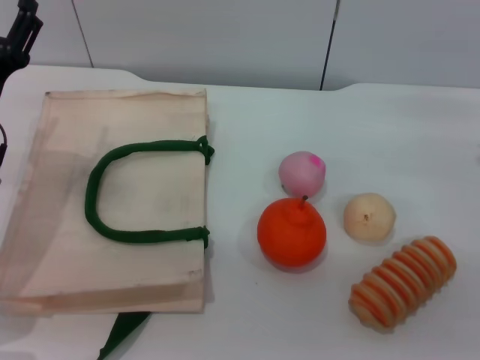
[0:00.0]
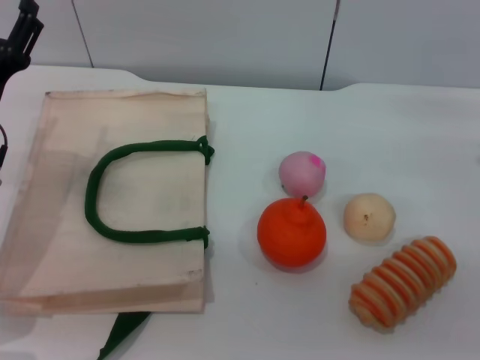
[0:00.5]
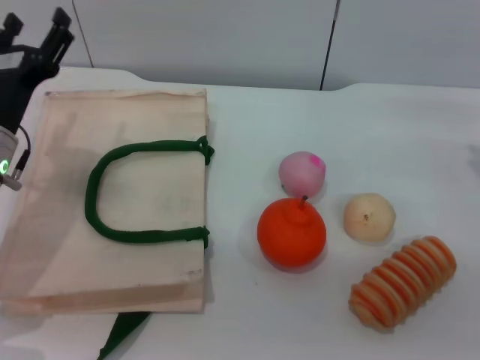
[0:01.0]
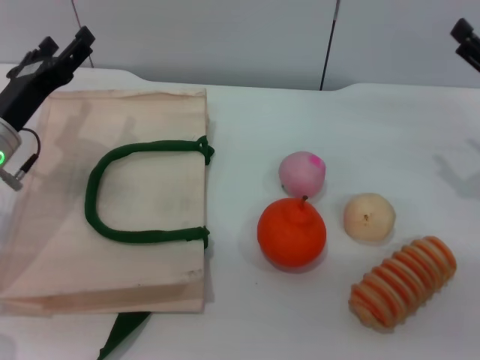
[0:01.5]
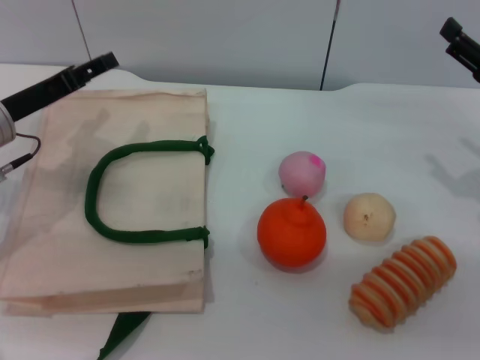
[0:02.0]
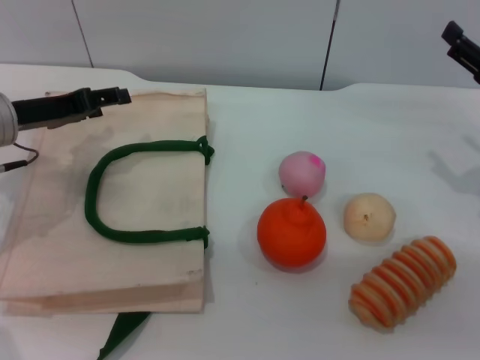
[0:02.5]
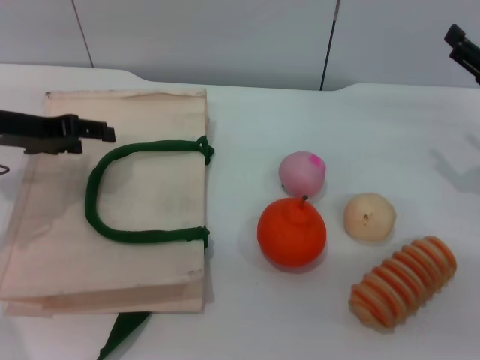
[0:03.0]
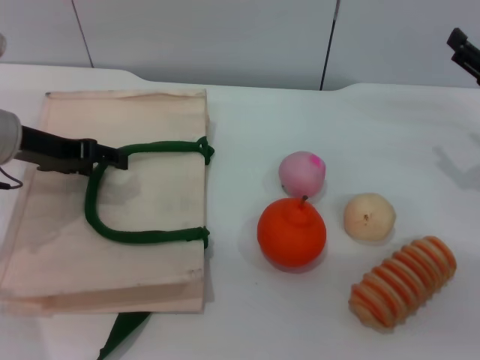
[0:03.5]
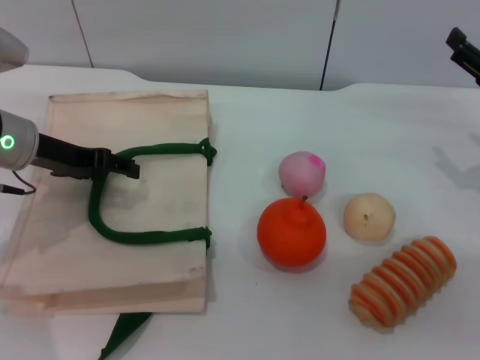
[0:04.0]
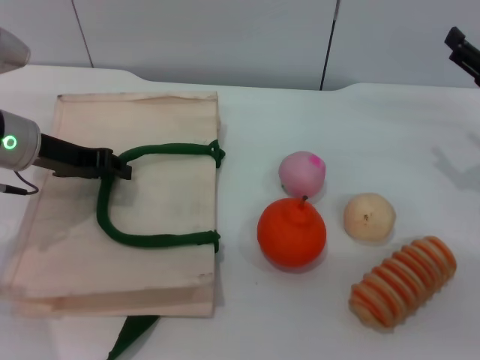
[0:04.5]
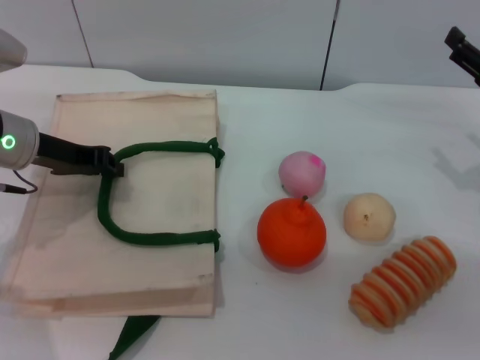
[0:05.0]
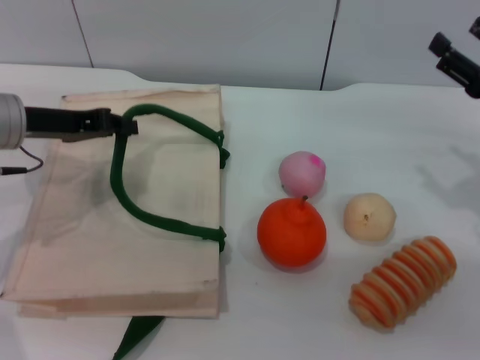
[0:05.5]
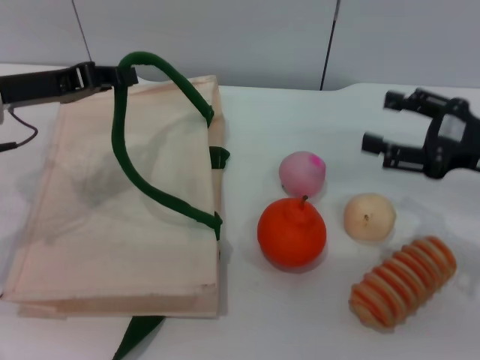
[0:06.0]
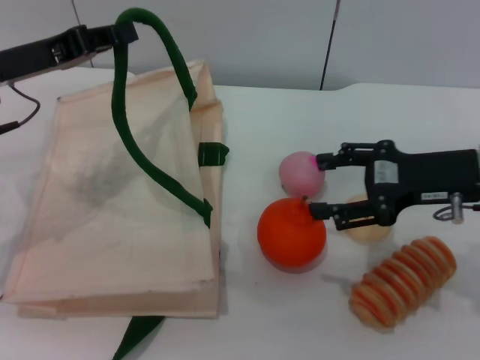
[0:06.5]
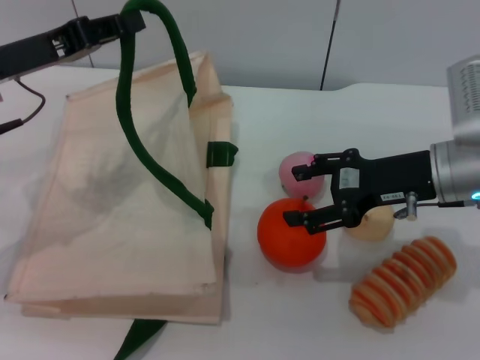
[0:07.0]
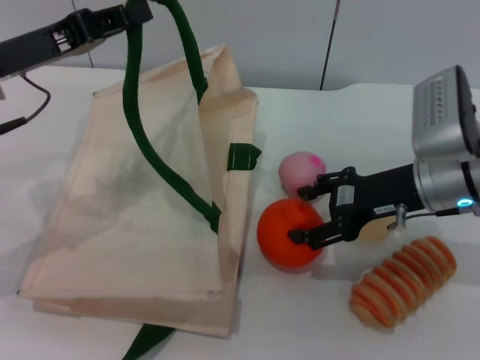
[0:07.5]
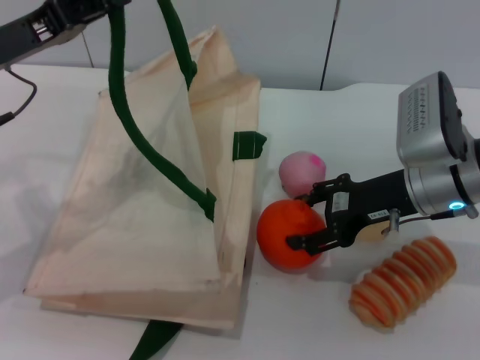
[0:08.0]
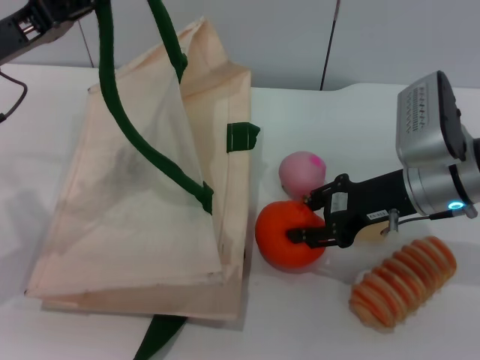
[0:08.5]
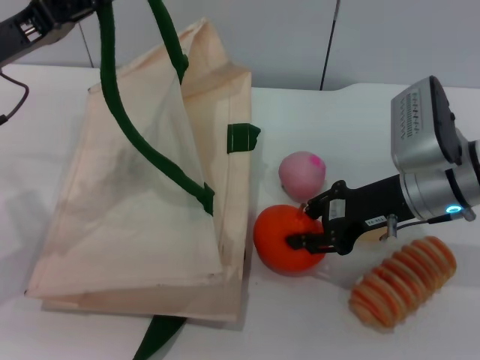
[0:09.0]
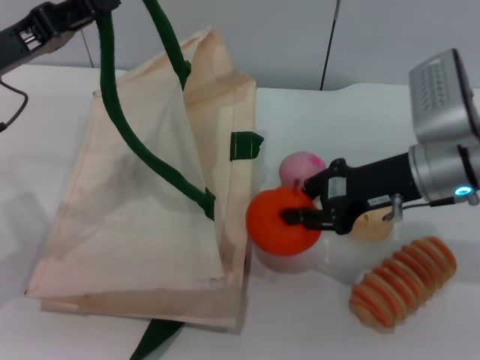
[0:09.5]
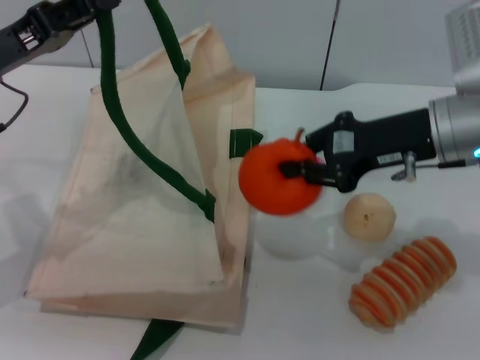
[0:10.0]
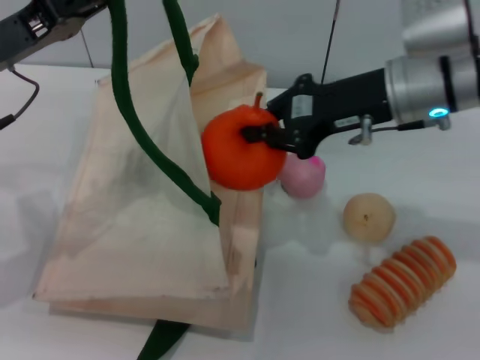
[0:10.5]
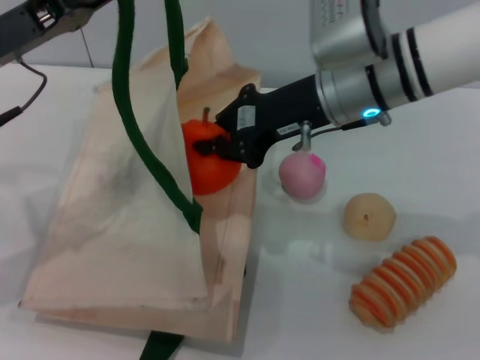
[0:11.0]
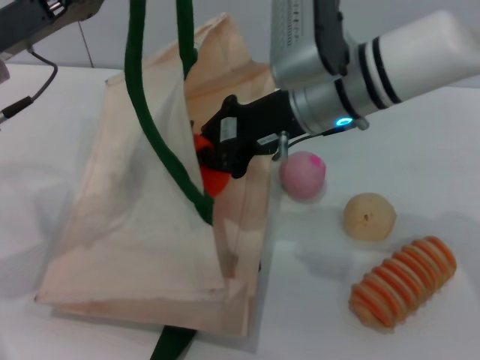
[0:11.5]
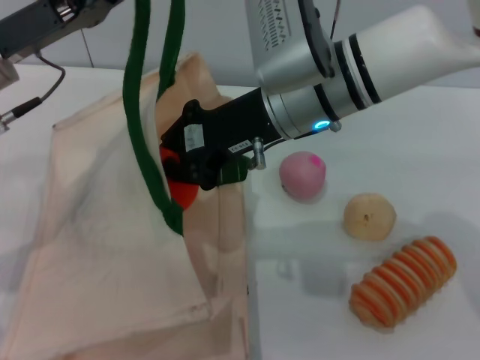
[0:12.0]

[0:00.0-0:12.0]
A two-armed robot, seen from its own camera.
Task of the whole recording: pick up the orange and peach from the table and place it in the white handbag.
Step, 0:00.0 to 0:05.0: Lift the woven bag with the left gripper to open it.
Step, 0:05.5 to 0:09.5: Pick up the orange with the right gripper.
0:00.0 to 0:02.0: The left gripper ends up roughly 5 cm from where it was.
0:04.0 to 0:06.0: The left gripper closes, while the right gripper ends up approximately 5 cm from where it was.
0:06.0 to 0:08.0: The right gripper moves to the left, some 10 cm.
0:08.0 to 0:10.0: The right gripper moves upward, approximately 5 cm, and closes up.
0:10.0 to 0:12.0: The right gripper heads to the left, covering about 15 cm.

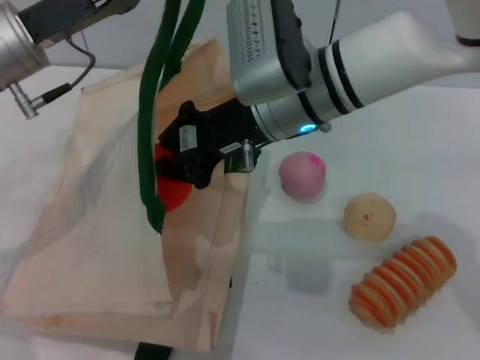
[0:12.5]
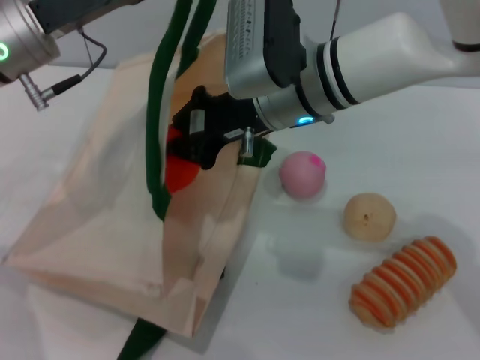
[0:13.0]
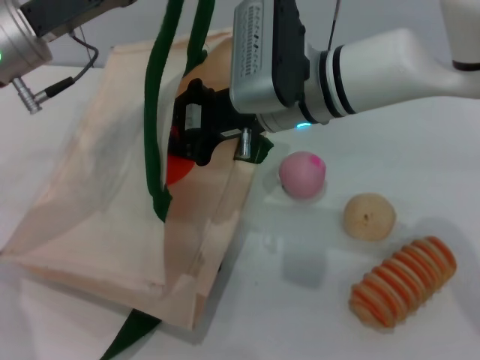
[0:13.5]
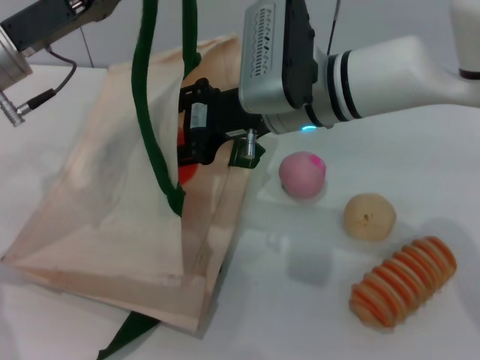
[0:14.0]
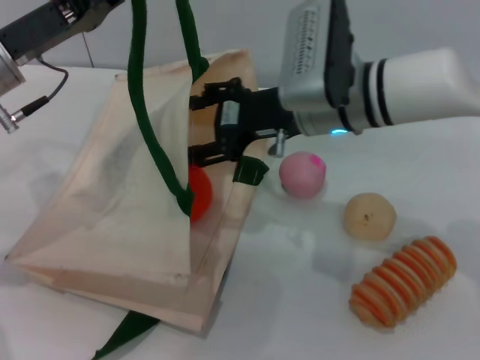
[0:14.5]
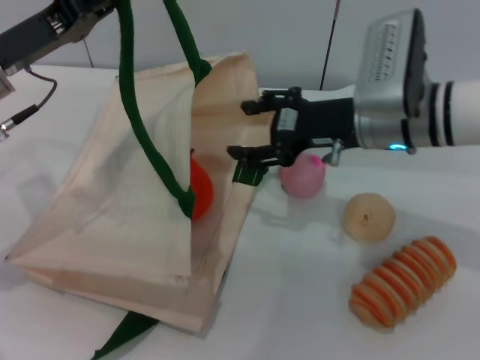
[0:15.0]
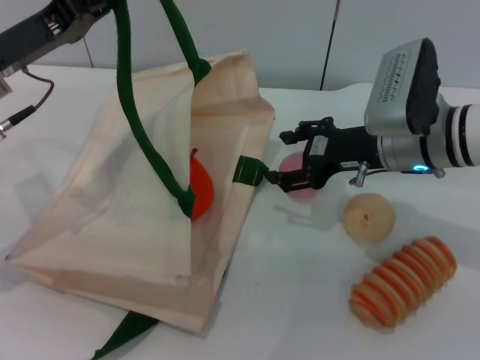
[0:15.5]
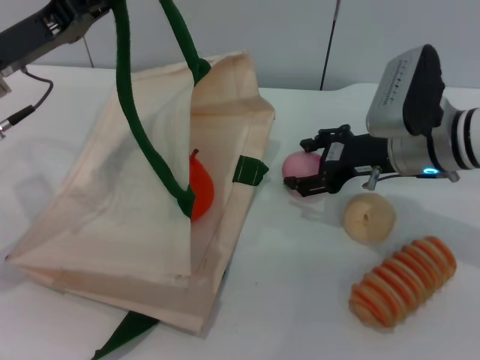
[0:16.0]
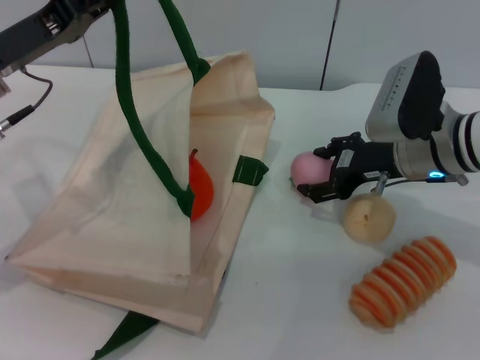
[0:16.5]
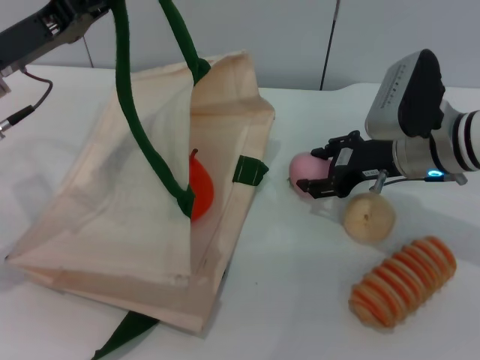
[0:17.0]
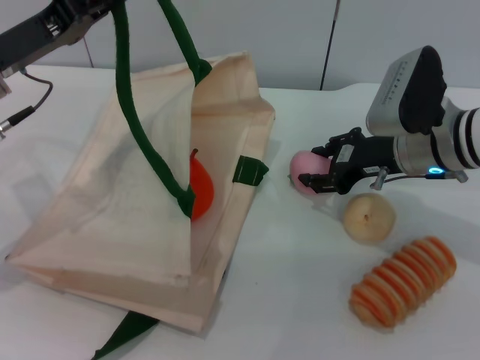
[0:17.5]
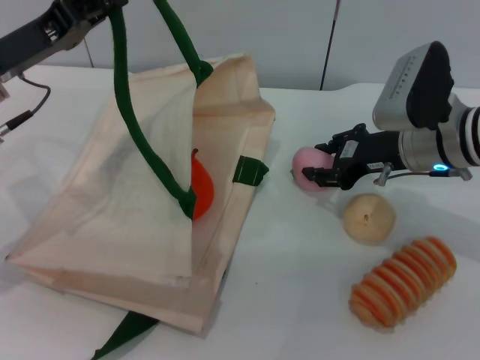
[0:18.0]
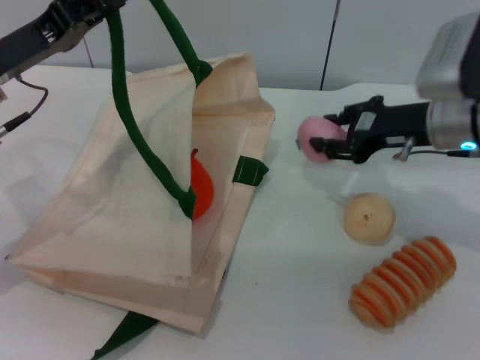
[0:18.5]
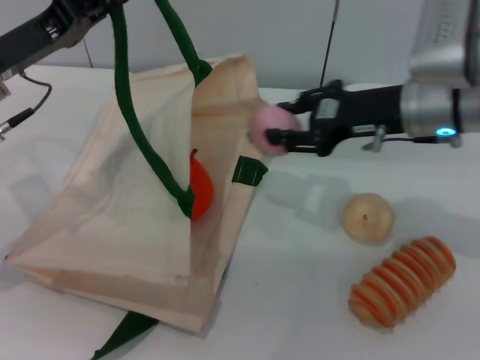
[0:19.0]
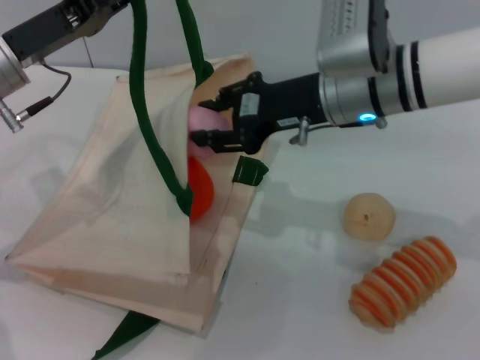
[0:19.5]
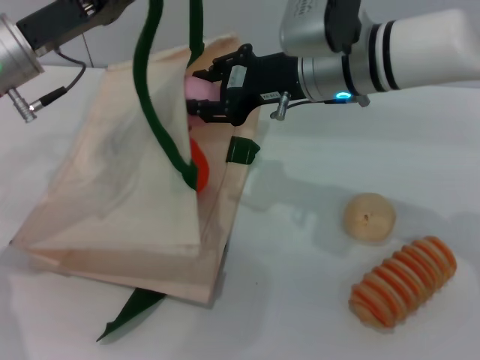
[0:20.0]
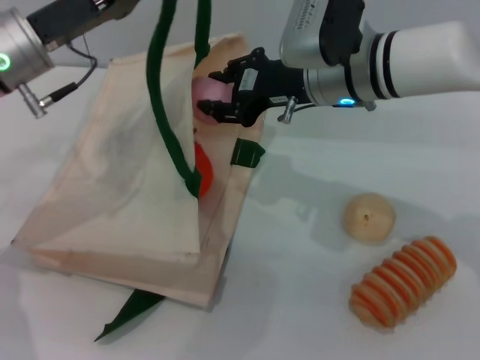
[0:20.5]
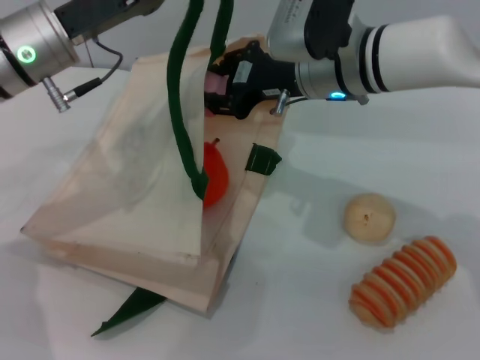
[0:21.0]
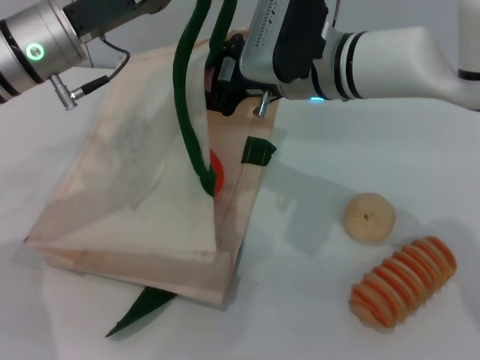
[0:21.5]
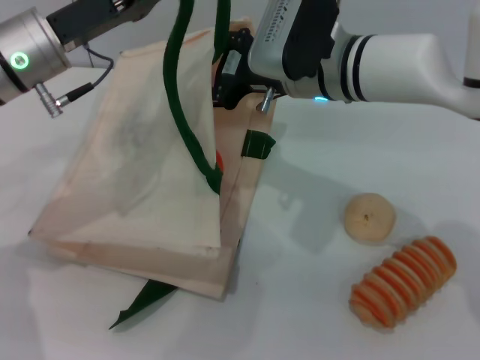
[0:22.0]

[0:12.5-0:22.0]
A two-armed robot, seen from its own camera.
Task of the whole recording: pick up the orange and peach from the table and place it in the white handbag.
Step, 0:12.5 to 0:15.0: Place the orange into the woven bag with the right gripper.
Step, 0:15.5 to 0:18.5: Pick up the peach with the right gripper.
0:12.5 to 0:14.5: The right gripper ends up approximately 5 cm from where it was, and opens its fingers.
0:14.5 to 0:16.5: The right gripper heads to the right and downward, covering about 10 cm.
0:16.5 to 0:18.0: Both grippers stay about where they are.
0:18.0 to 0:20.0: The right gripper goes roughly 15 cm to the left and upward.

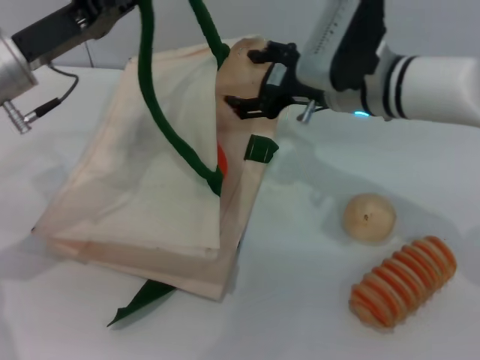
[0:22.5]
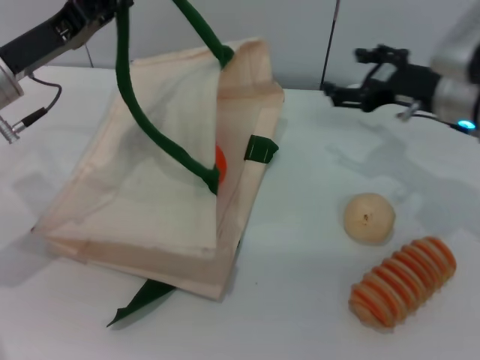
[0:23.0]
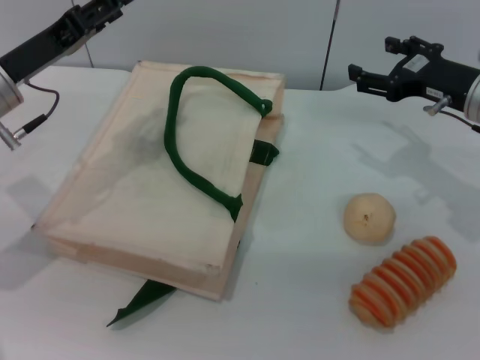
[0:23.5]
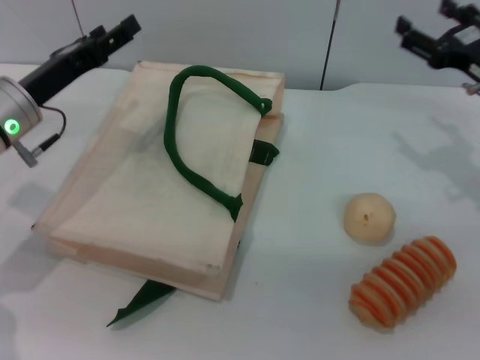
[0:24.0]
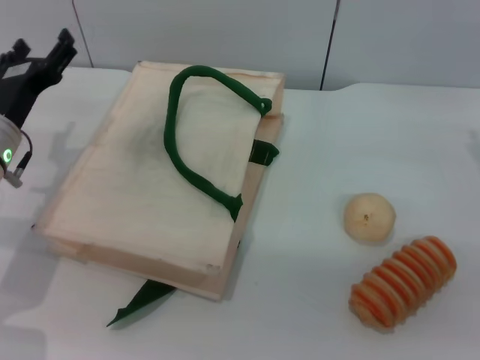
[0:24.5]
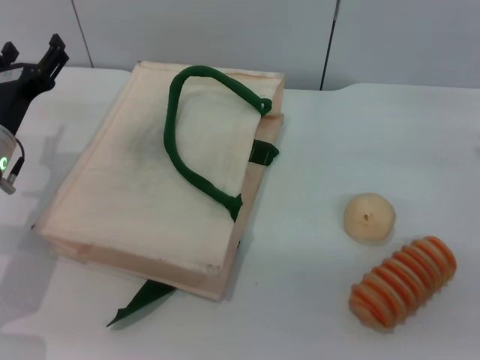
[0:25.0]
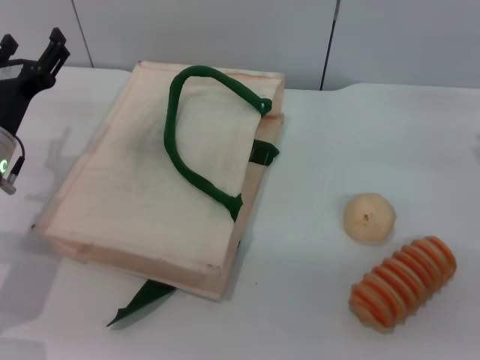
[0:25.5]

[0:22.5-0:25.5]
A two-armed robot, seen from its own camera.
Task of the whole recording: pick up the orange and peach from the table and place it in the white handbag.
Step, 0:23.0 to 0:24.0: Lower the woven bag with the left gripper to close it.
0:22.5 to 0:24.0: The right gripper heads to the right, covering roughly 15 cm. Meanwhile the left gripper goes some 5 cm downward, and opens.
0:24.0 to 0:25.5: The right gripper changes place by some 5 cm.

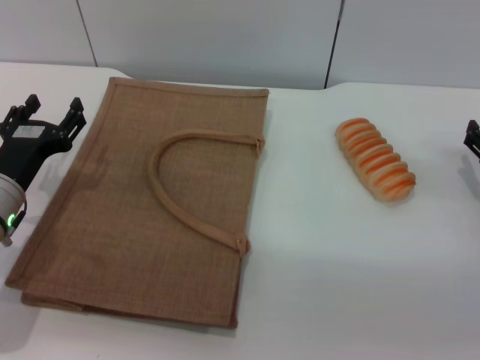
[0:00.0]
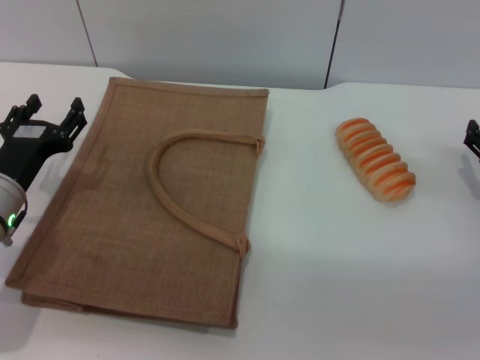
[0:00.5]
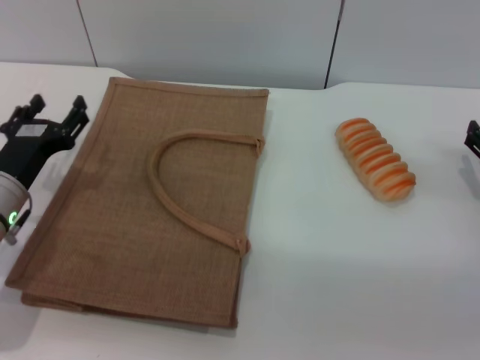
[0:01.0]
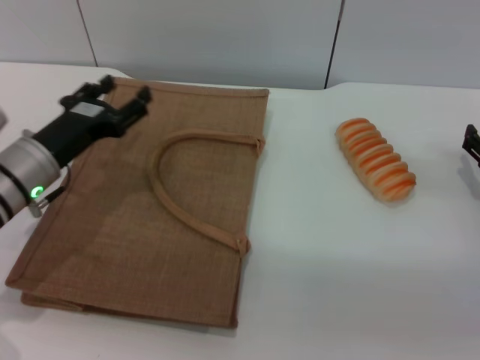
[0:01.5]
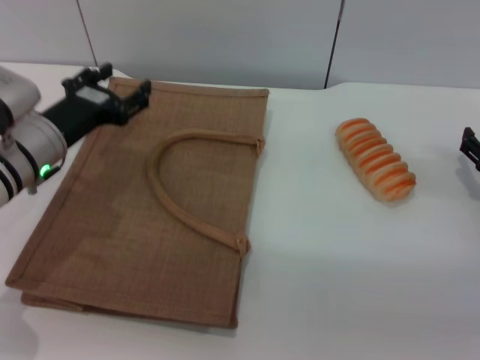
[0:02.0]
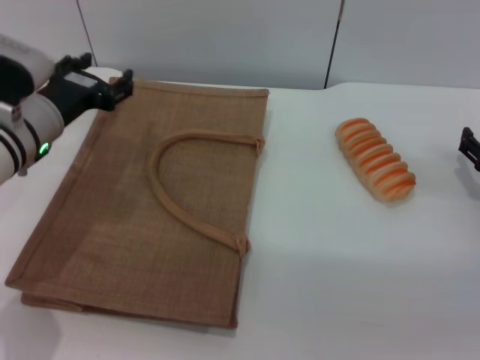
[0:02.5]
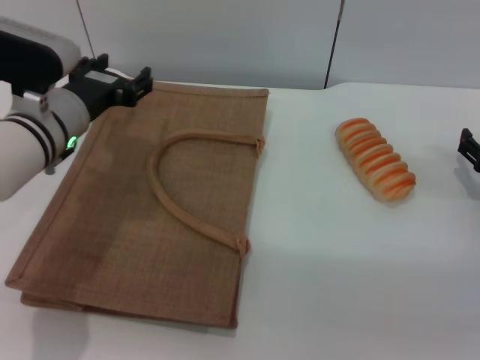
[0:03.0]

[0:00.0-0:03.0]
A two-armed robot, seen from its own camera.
Task of the whole recording: pick up the bread from the table and place it in the brown handbag.
0:01.5 to 0:03.0: The left gripper ends up some 10 cm from where it was.
